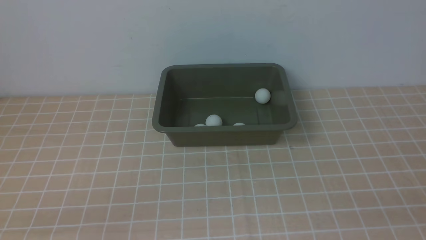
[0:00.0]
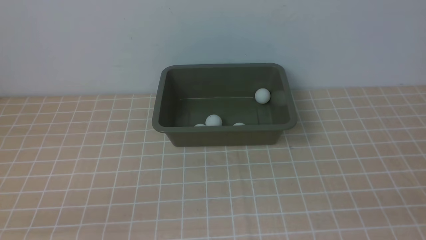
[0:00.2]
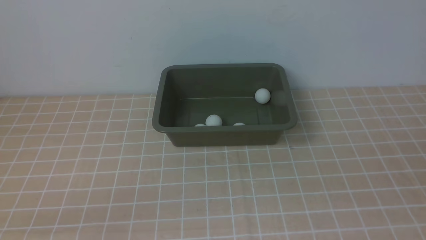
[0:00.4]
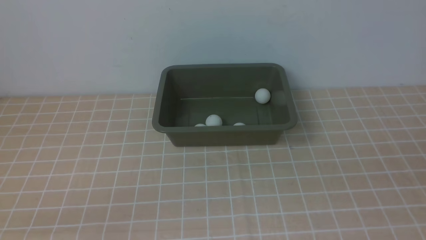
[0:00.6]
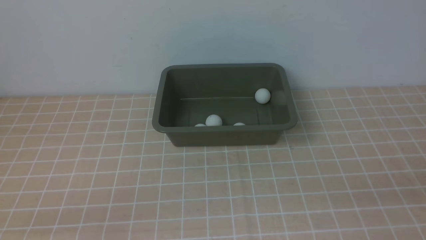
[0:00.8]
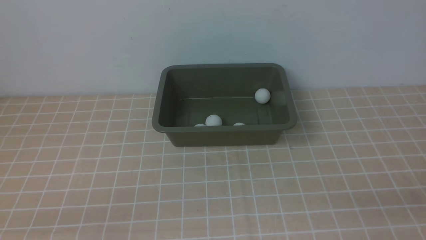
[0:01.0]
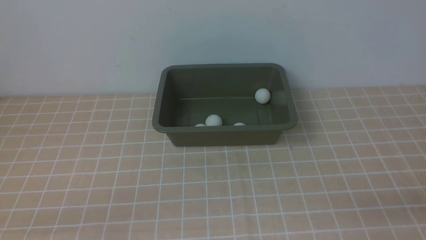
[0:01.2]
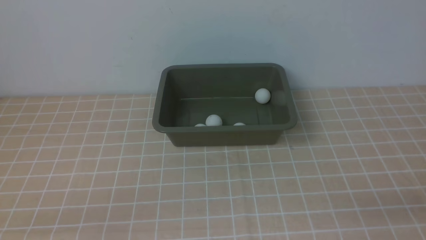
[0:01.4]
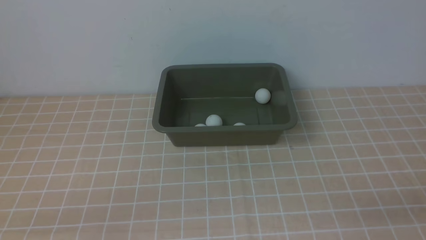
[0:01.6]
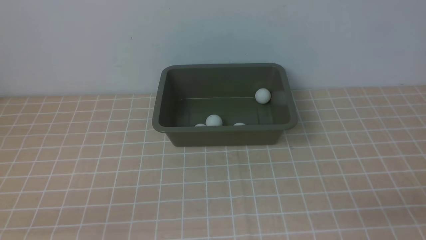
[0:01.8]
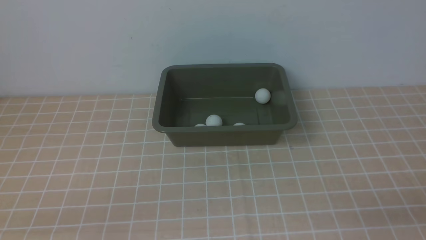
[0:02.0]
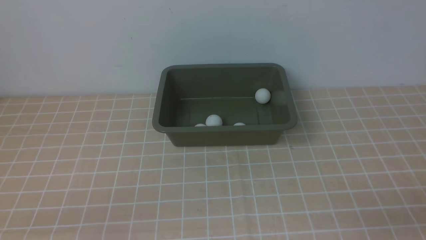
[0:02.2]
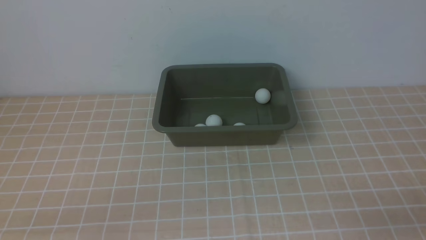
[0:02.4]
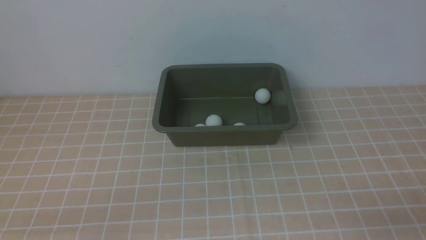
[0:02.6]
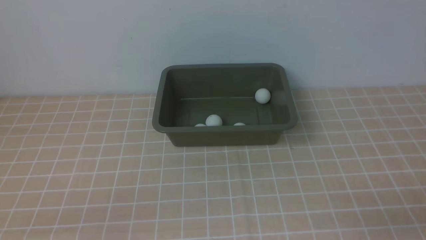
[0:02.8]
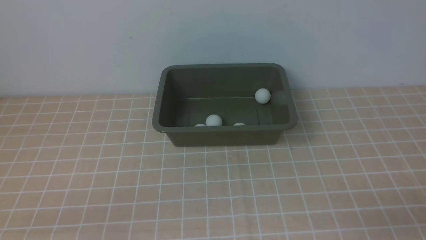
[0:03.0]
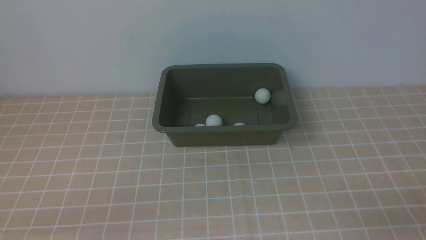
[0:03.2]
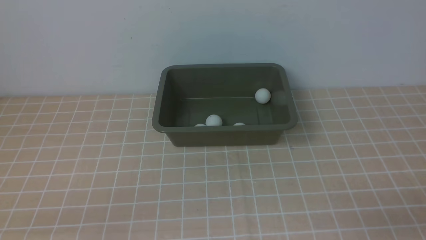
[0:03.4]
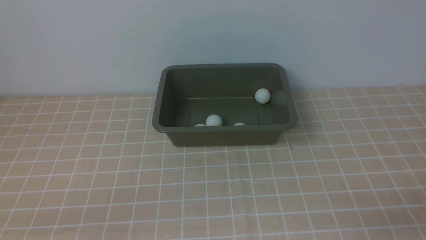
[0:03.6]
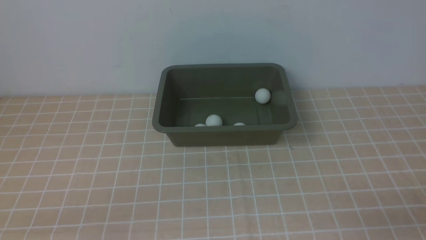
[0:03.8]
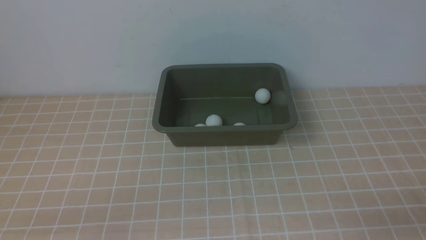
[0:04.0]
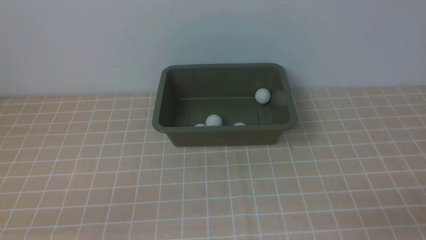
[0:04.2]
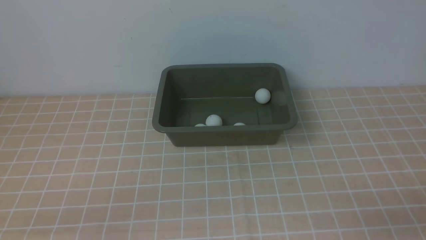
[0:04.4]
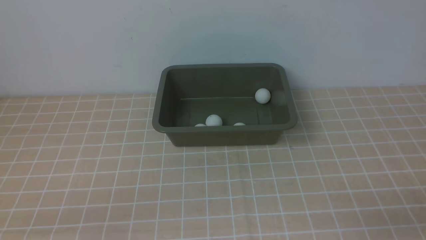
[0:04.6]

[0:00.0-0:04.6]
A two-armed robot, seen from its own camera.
0:03.0 to 0:04.6: Neither gripper changes place.
